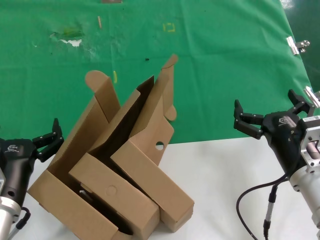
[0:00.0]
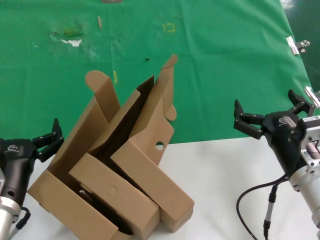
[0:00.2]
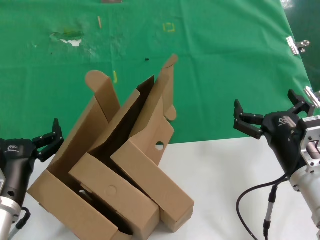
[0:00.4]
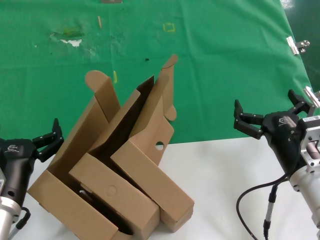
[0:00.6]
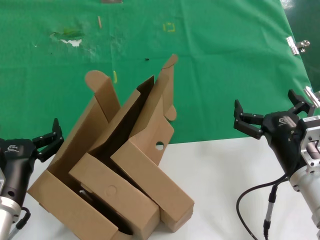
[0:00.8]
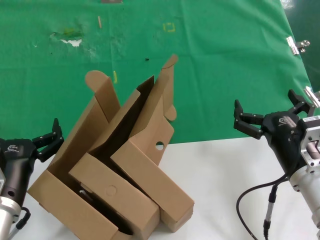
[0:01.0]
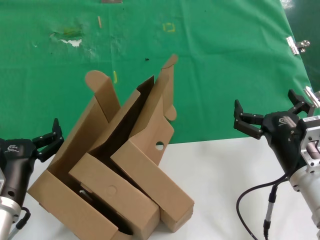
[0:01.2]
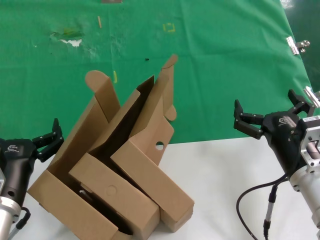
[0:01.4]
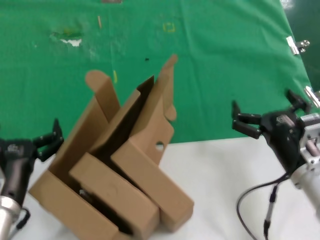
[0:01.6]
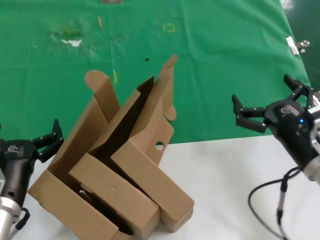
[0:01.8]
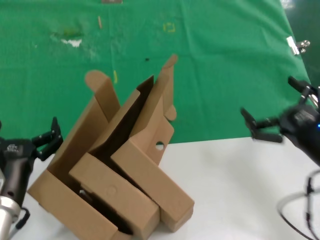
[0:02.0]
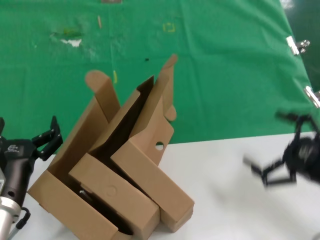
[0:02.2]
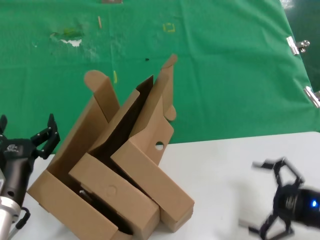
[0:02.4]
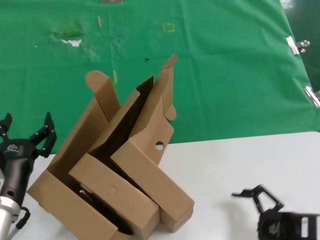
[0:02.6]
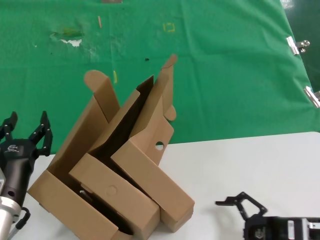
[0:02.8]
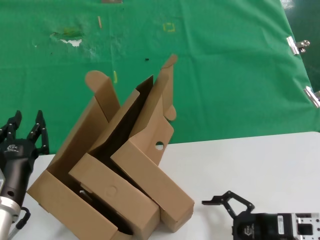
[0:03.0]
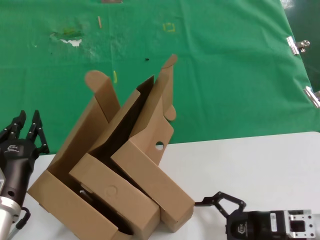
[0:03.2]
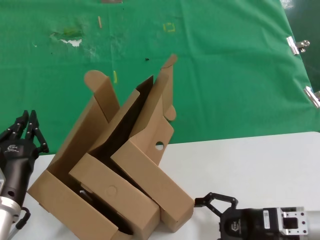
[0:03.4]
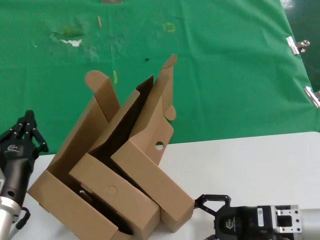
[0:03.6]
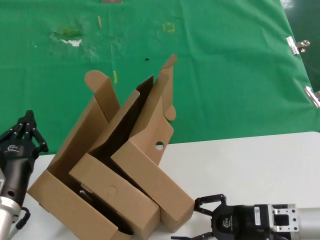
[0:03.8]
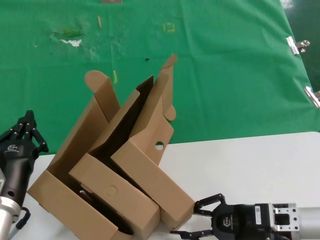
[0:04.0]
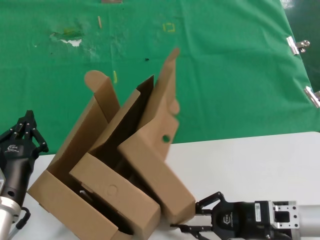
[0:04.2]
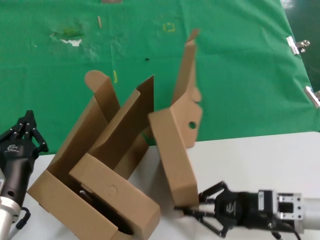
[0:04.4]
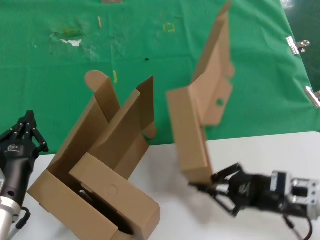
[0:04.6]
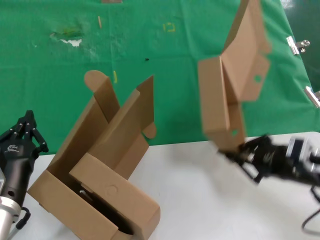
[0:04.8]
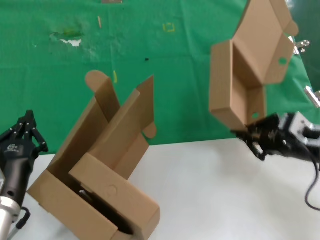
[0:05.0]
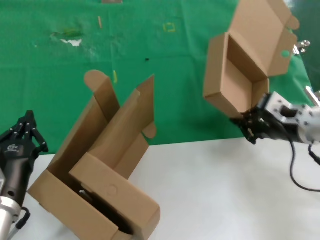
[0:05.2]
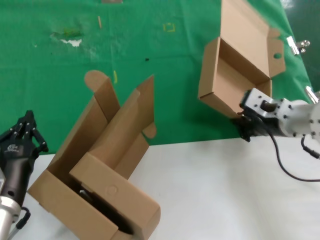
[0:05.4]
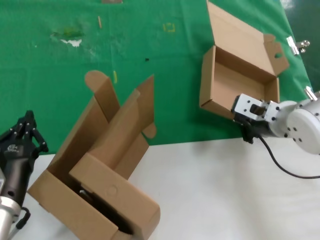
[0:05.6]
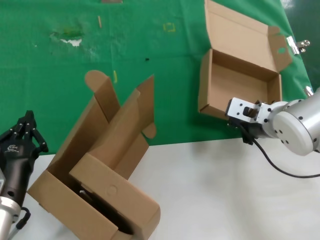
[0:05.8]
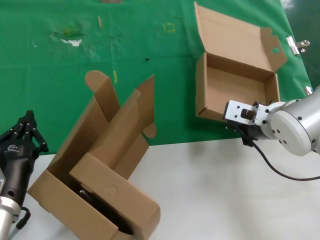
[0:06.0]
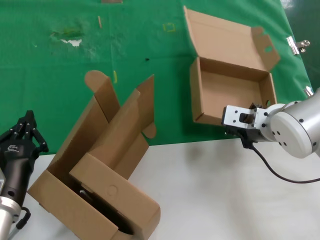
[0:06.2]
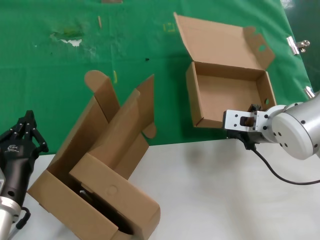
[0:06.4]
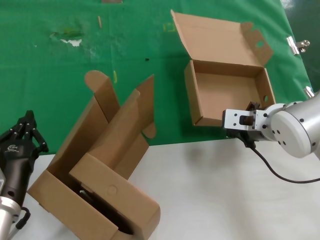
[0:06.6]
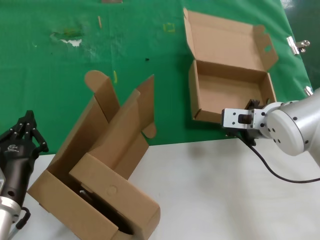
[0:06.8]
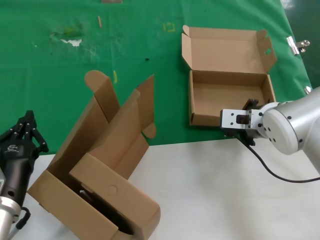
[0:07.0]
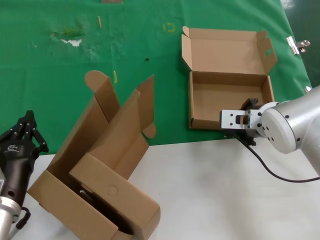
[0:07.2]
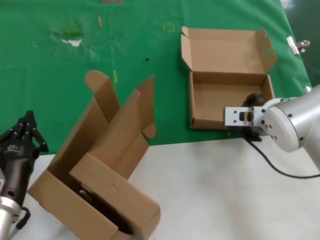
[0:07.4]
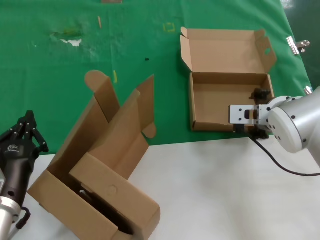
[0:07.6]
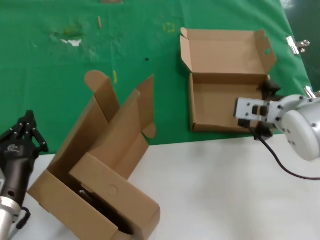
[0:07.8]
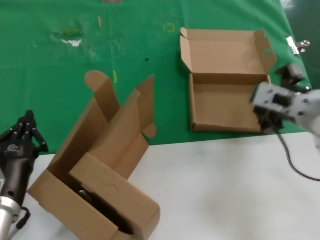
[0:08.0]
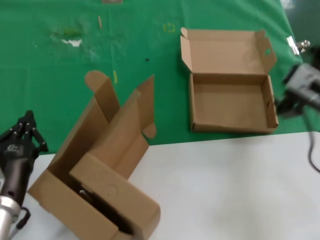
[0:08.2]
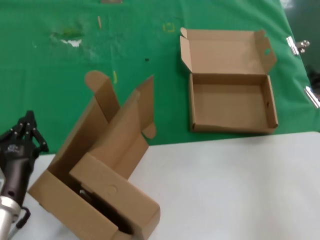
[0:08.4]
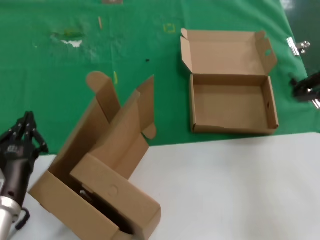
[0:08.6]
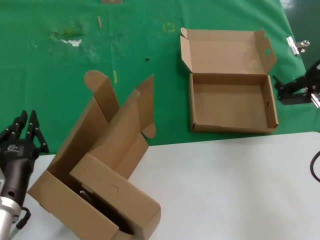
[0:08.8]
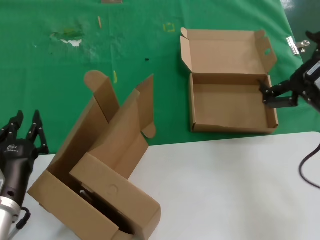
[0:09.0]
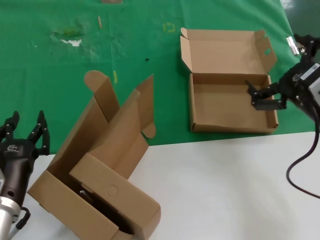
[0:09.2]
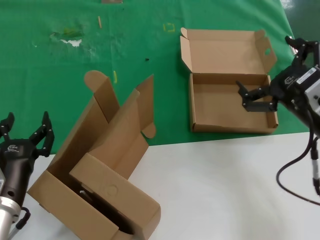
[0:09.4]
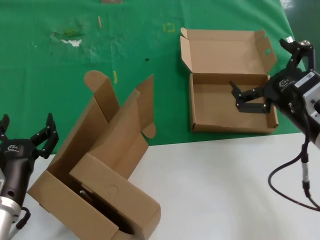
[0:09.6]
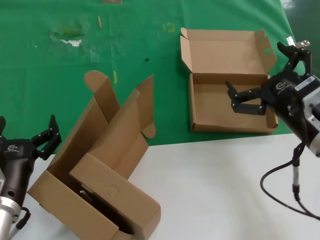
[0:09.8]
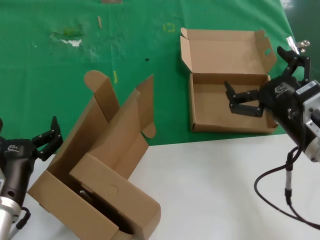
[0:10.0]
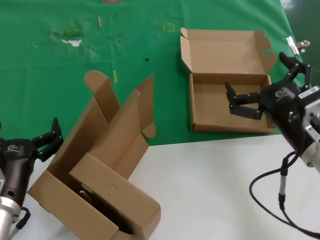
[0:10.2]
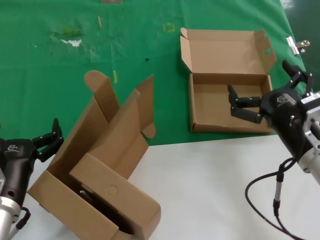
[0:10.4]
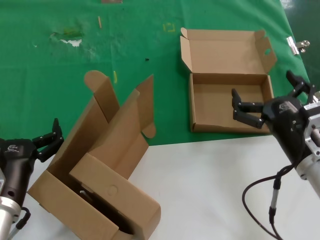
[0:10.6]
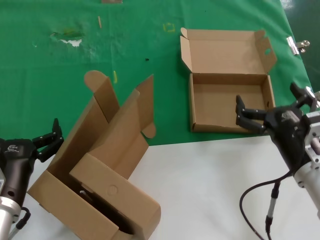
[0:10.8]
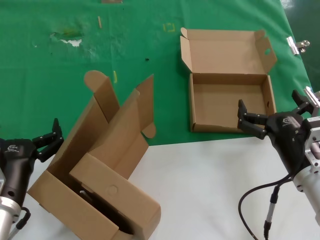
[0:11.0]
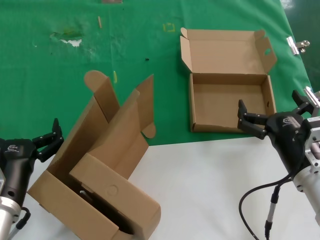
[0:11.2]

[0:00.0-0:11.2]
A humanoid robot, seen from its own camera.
Task of the whole recording: pick up the paper box and put it at the back.
Step, 0:00.0 to 0:04.4: Grasp the paper box.
Step, 0:04.6 to 0:07.6: Place the paper box on the table.
0:00.0 to 0:01.6: Both hands stay about where they are.
0:01.6 to 0:03.2: The right hand heads to the right and downward, covering about 10 cm.
0:03.2 to 0:04.8: The right hand moves upward, about 10 cm.
0:04.8 to 0:06.4: The right hand goes about 15 cm to the left, forward and upward.
0:06.4 to 0:08.0: The right hand heads backward and upward, covering approximately 5 cm.
0:08.0 to 0:09.6: The right hand travels backward by roughly 5 cm.
0:09.6 to 0:11.2: The right hand goes some 10 cm downward.
